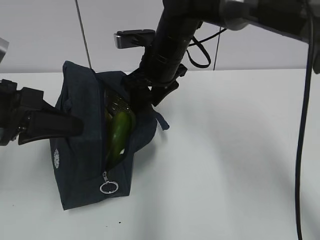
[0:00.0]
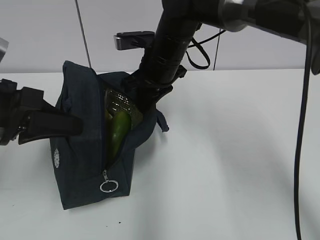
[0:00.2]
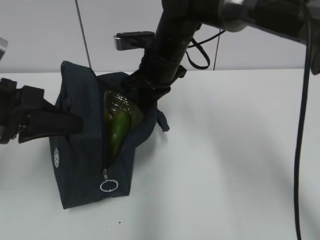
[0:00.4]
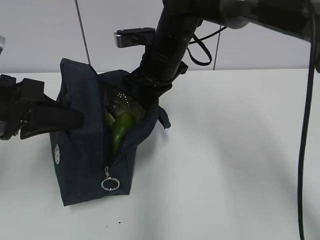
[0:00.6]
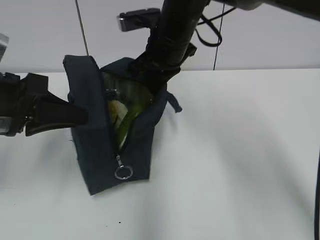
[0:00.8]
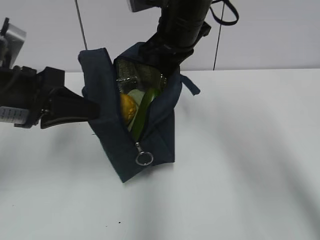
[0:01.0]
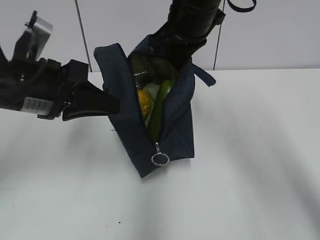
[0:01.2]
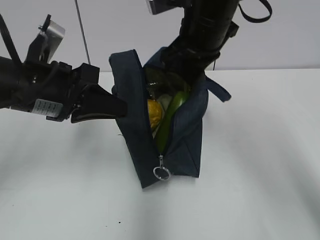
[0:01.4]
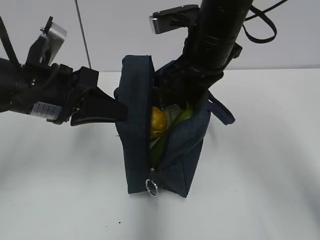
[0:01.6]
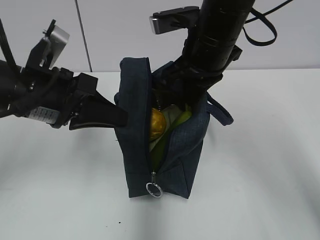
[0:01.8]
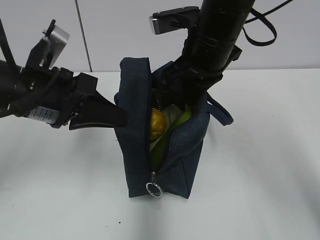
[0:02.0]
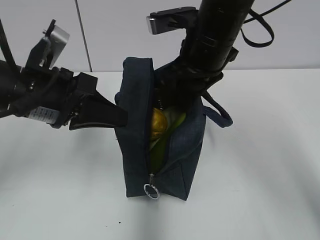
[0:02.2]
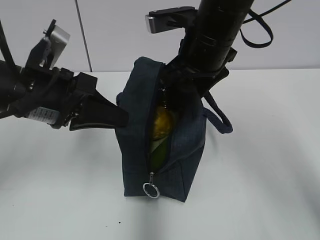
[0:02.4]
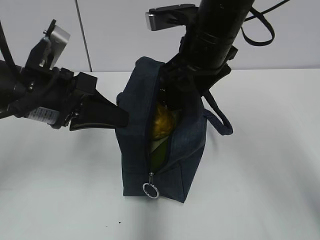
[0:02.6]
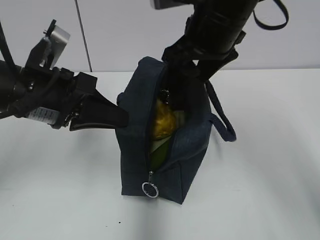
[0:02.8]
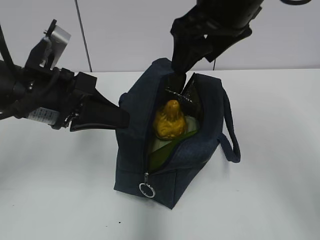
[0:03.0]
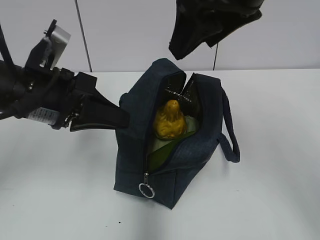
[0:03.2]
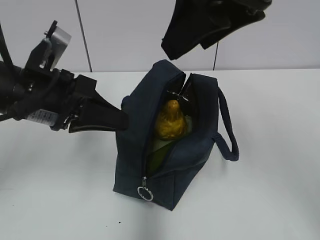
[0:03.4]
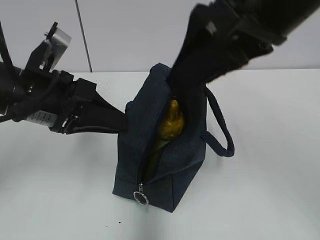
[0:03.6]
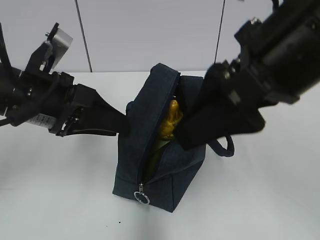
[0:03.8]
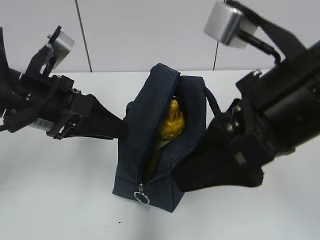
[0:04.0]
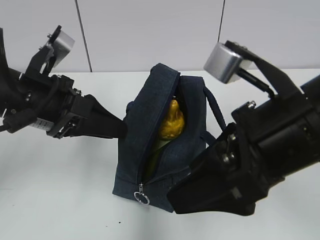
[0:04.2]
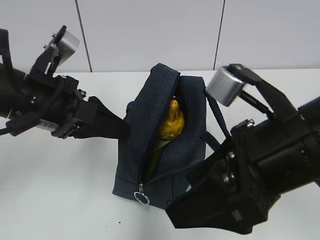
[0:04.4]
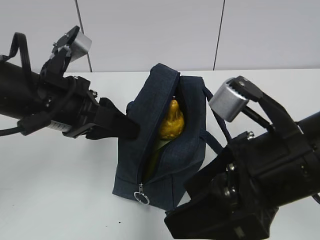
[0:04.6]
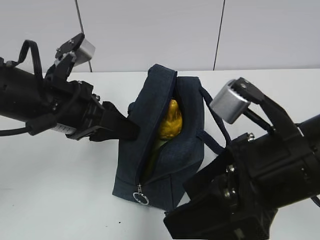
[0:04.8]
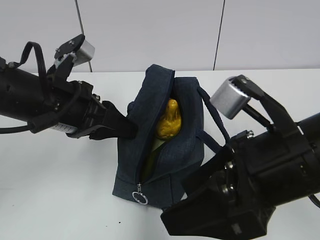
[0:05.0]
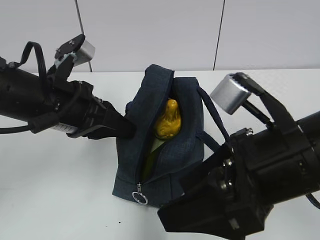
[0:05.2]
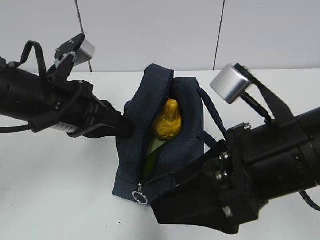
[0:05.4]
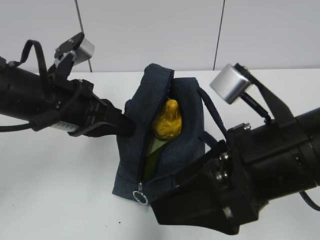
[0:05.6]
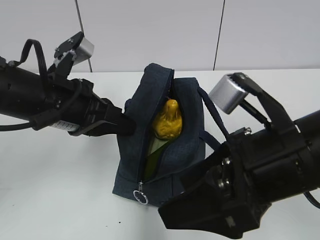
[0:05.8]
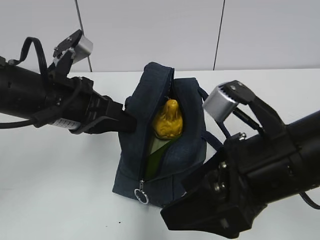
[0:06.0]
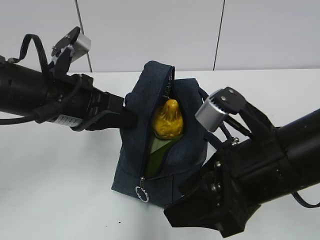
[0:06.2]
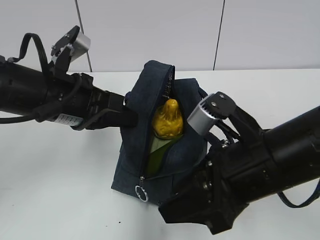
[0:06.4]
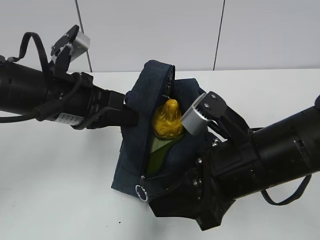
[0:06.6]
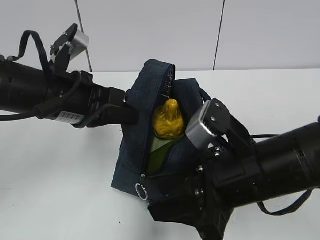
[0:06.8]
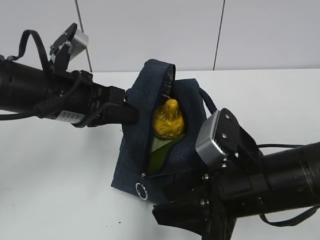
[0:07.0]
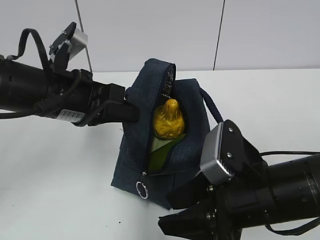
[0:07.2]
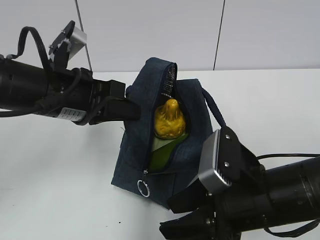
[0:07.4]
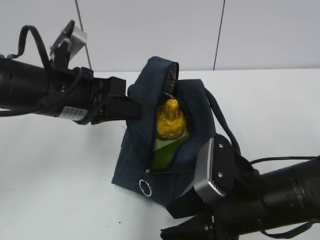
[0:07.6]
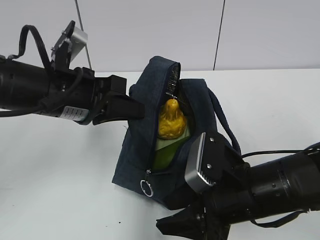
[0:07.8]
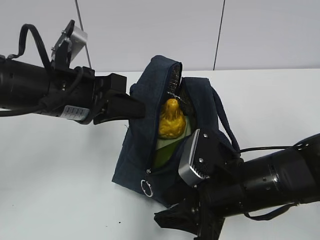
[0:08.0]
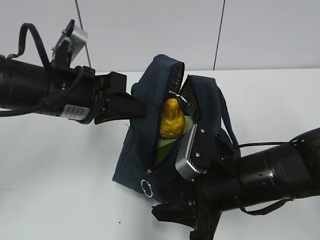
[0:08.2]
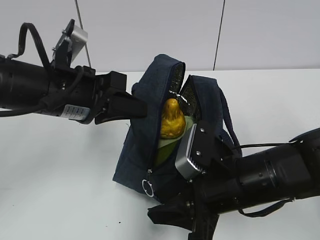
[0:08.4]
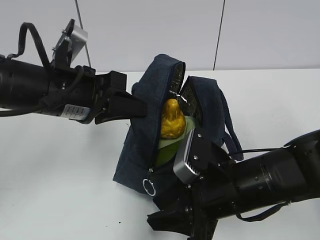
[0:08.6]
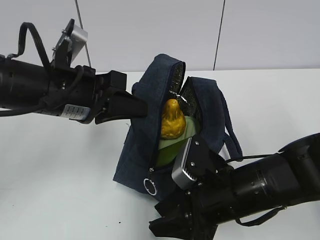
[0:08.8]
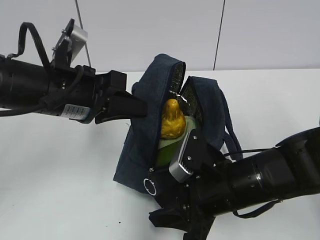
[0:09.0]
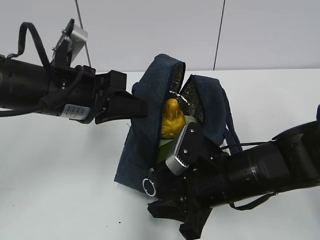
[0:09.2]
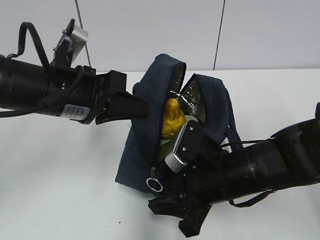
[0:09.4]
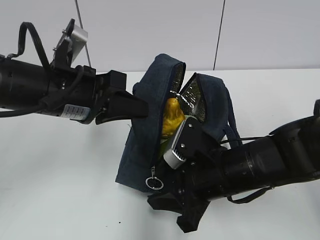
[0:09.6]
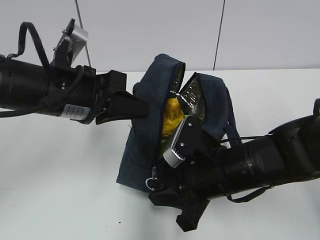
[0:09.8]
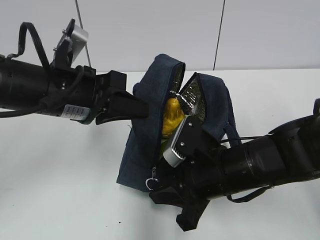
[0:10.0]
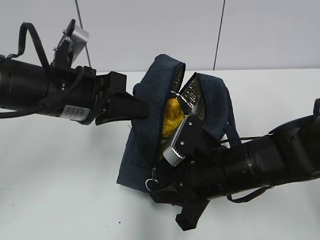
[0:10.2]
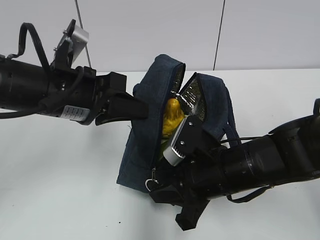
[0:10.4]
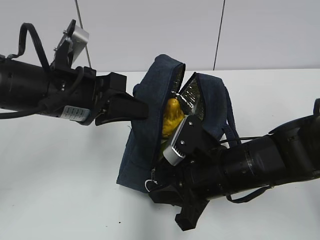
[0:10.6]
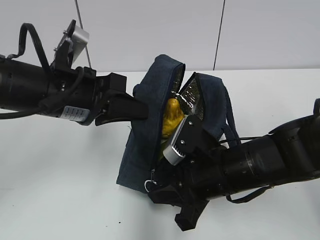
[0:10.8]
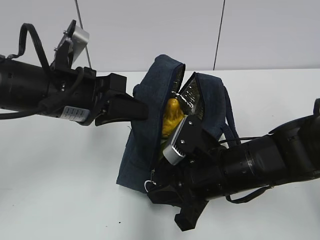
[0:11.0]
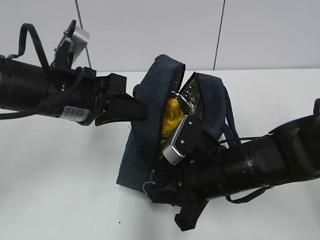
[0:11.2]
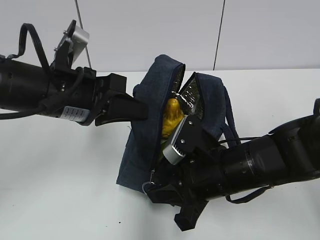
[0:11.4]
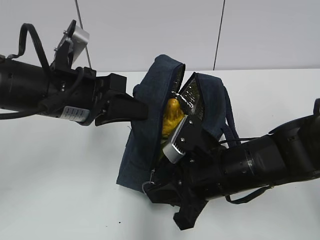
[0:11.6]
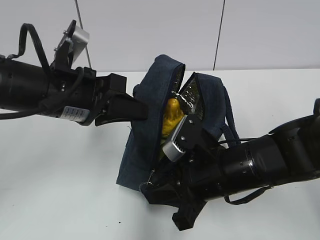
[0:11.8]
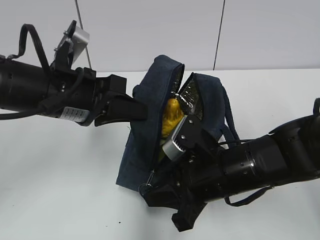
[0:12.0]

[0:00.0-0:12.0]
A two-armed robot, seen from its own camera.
Step, 0:00.6 to 0:02.6: Move the lunch bag to the right.
0:00.0 to 0:01.6: The right gripper shifts approximately 10 cm backward, upward and to the right, and closes up. Meanwhile the left gripper travels to the right by about 5 cm.
0:01.6 to 0:03.0: The right gripper travels upward by about 5 cm, and opens.
0:03.0 to 0:04.4: The right gripper moves backward and downward, some 15 cm; the left gripper opens.
0:04.4 to 0:06.0: The left gripper closes its fingers.
0:06.0 to 0:07.6: The right gripper heads downward, covering approximately 10 cm, and closes up.
0:07.6 to 0:09.0: The grippers move only a little.
0:09.0 to 0:10.4: The right gripper closes its fingers.
0:10.4 to 0:12.0: There are only small adjustments of the grippers.

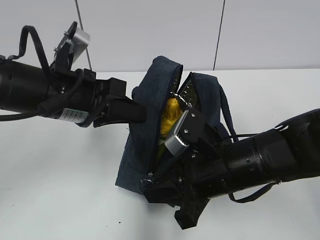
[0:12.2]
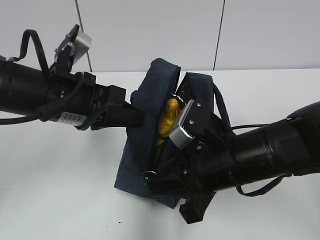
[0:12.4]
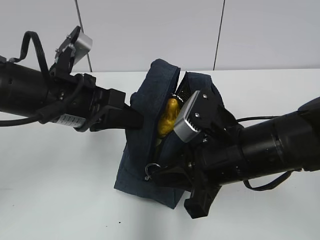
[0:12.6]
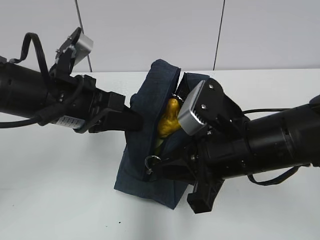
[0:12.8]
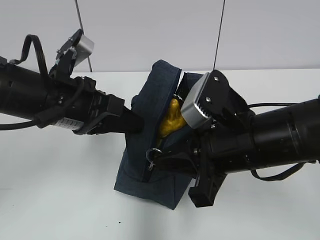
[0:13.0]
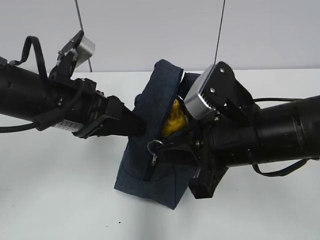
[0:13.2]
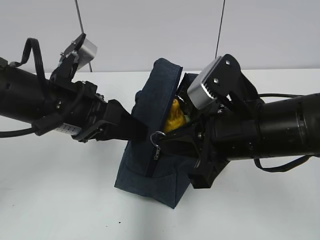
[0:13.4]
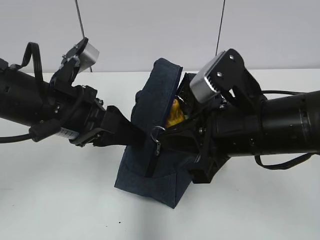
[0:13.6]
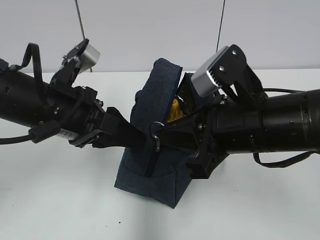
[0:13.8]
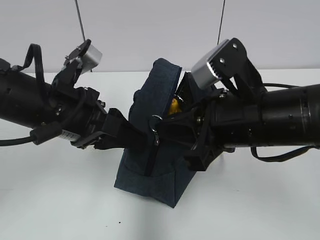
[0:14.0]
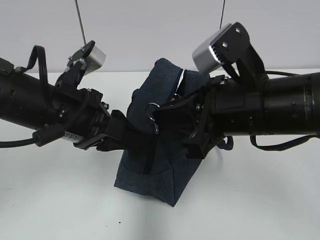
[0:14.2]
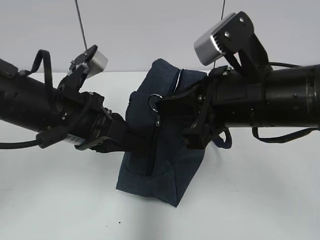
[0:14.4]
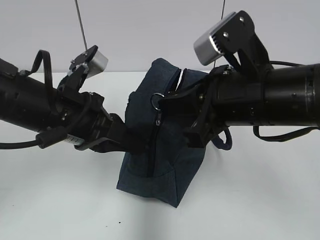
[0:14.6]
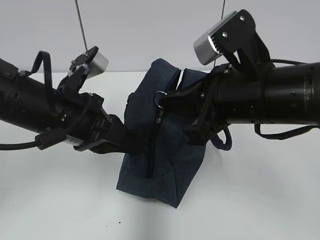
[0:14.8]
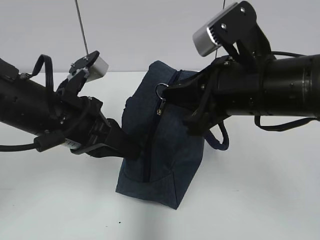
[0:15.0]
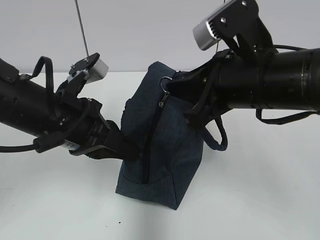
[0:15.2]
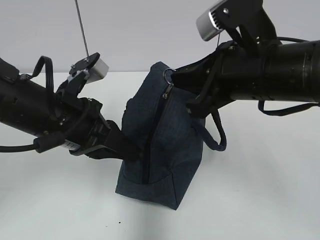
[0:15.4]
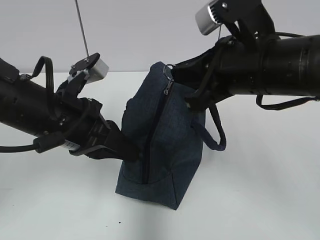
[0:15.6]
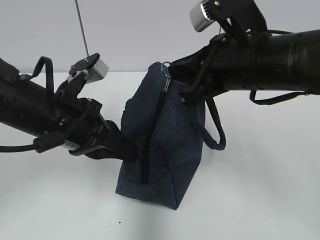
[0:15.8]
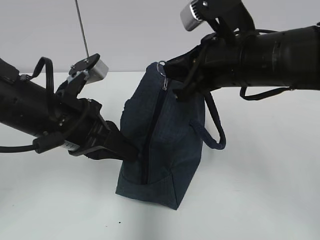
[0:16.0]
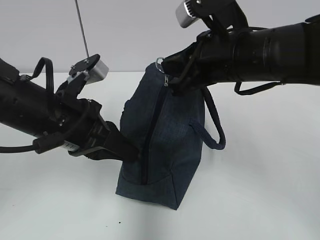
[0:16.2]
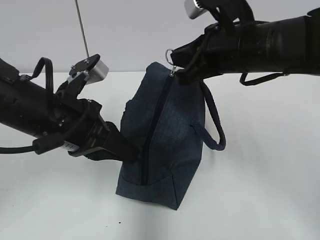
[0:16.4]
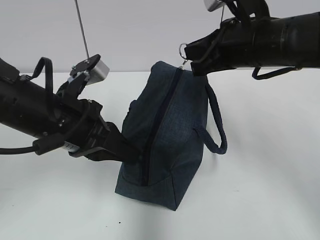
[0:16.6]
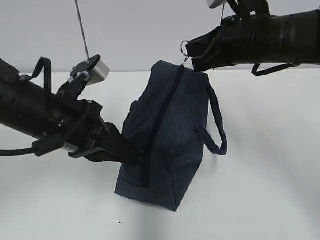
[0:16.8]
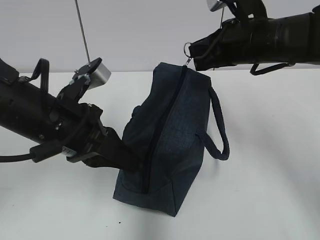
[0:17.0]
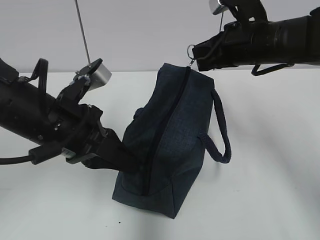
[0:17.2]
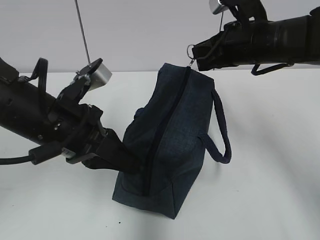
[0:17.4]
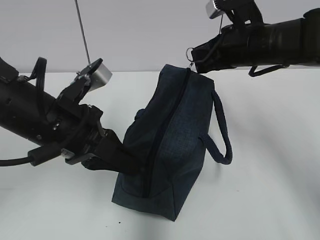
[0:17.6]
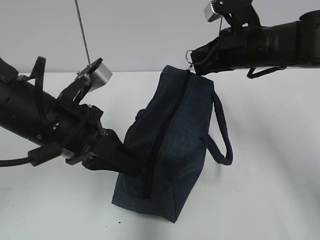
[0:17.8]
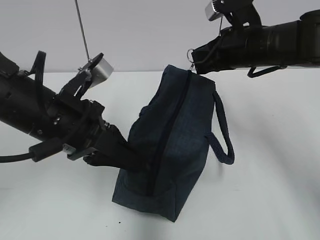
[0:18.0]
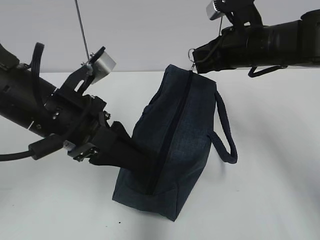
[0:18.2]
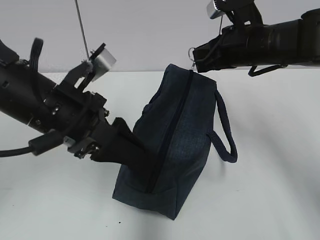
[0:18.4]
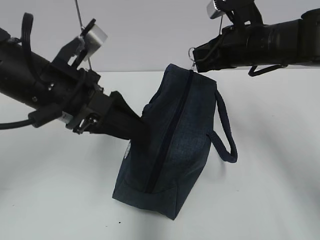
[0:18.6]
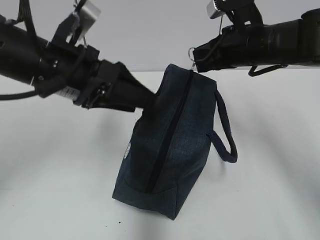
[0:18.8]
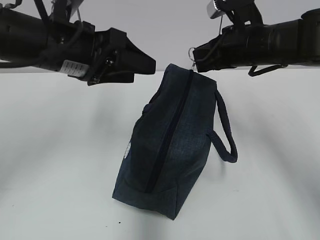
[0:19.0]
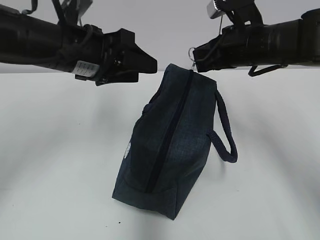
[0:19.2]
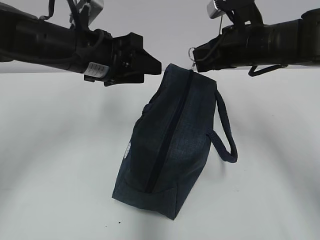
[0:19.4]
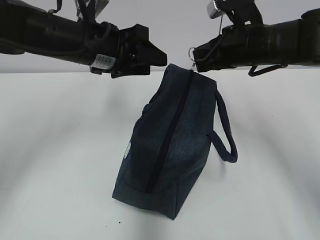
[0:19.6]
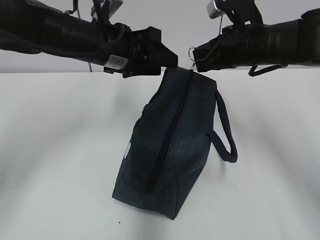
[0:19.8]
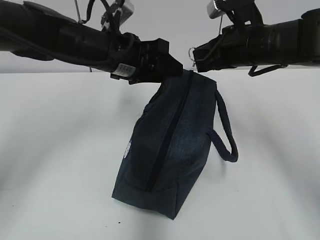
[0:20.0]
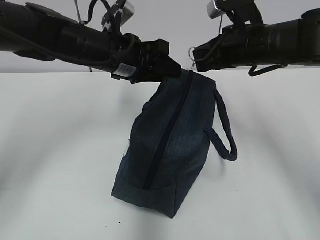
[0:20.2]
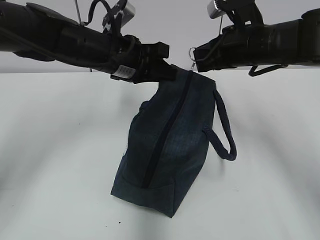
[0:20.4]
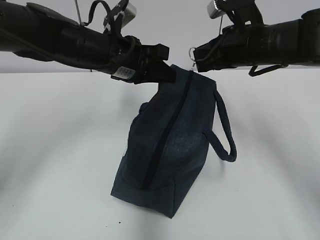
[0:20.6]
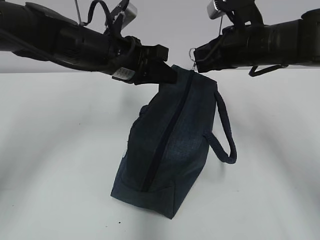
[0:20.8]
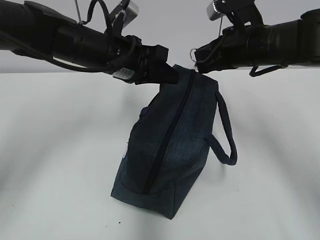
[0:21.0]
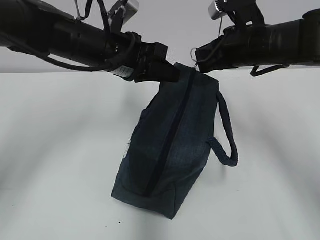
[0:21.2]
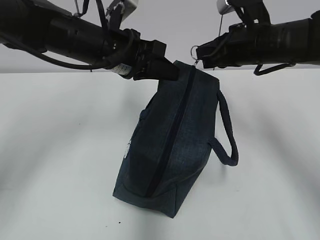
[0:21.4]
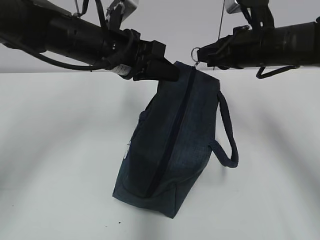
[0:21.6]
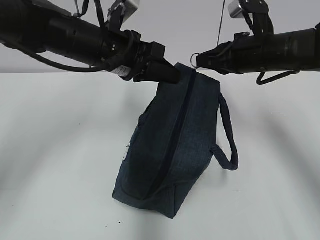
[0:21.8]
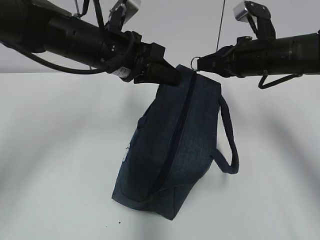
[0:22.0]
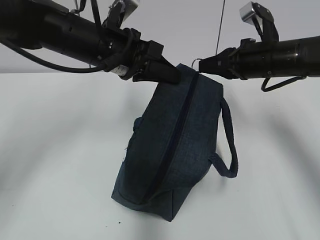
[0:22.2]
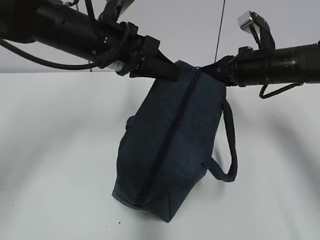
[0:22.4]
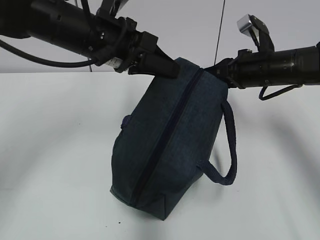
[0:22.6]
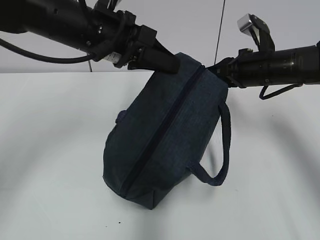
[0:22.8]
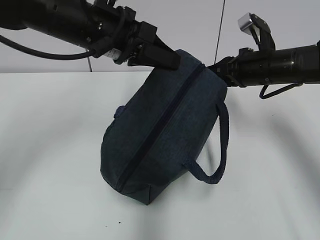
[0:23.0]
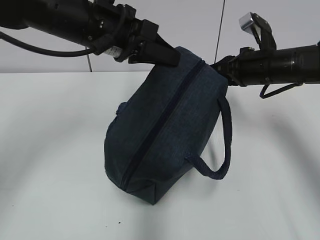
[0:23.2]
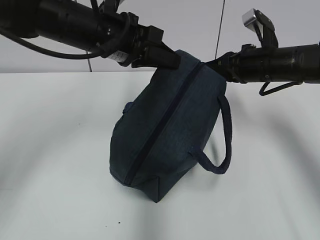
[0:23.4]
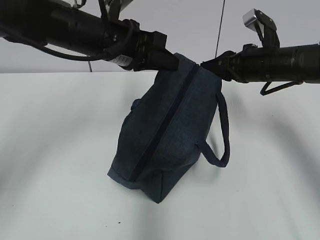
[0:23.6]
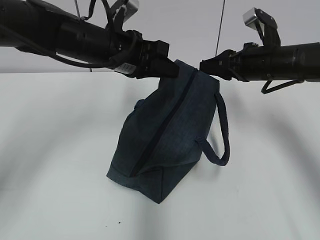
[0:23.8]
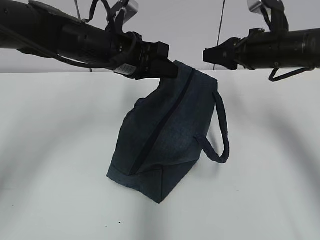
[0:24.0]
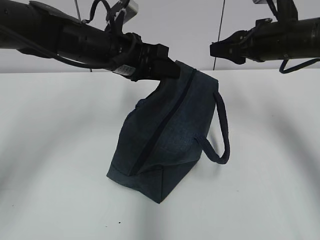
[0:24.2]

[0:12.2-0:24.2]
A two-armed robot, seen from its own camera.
Step, 0:12.2 to 0:18.2: Grab the lunch bag with your left hand.
Step, 0:18.4 to 0:23.4: Pull the zipper with your right hand.
0:12.2 to 0:13.8: The left gripper opens up, while the right gripper moves upward, approximately 10 cm.
0:13.8 to 0:15.2: The left gripper closes up.
0:15.2 to 0:16.6: The right gripper heads forward, covering roughly 10 cm.
0:16.6 to 0:18.2: The left gripper opens its fingers. The right gripper moves forward, some 5 cm.
0:18.2 to 0:19.8: The left gripper shifts some 10 cm forward.
0:19.8 to 0:21.2: The left gripper closes its fingers.
0:21.2 to 0:22.6: The right gripper changes place by approximately 5 cm.
0:22.6 to 0:24.2: The left gripper ends up roughly 5 cm from where it was, and opens up; the right gripper moves upward, about 5 cm, and opens up.
